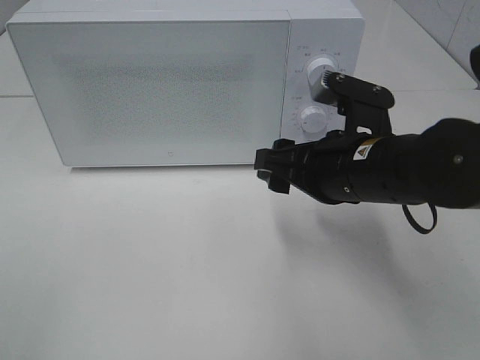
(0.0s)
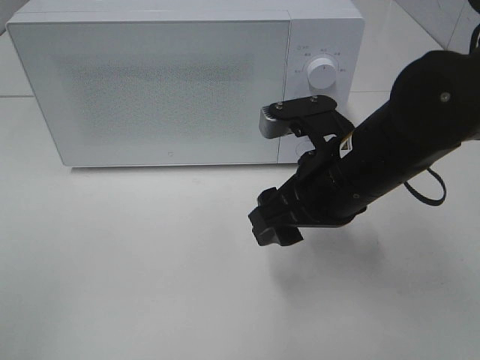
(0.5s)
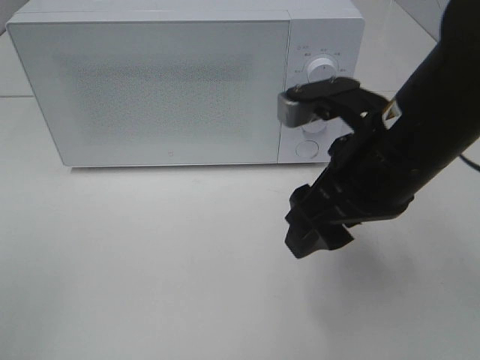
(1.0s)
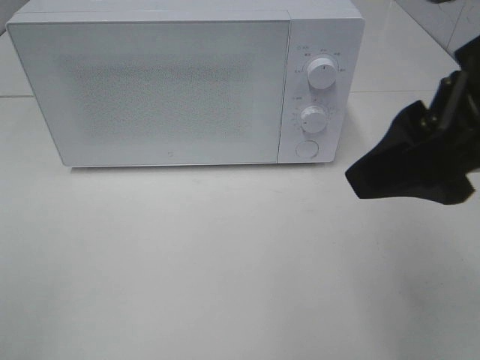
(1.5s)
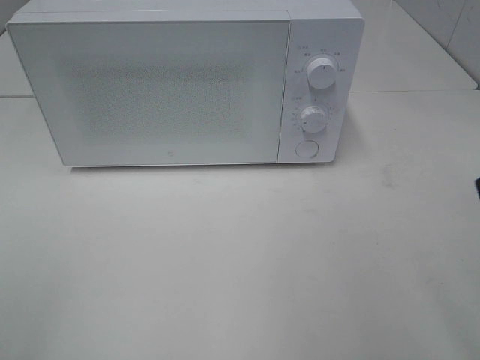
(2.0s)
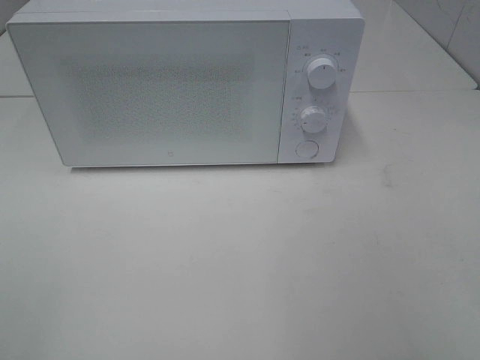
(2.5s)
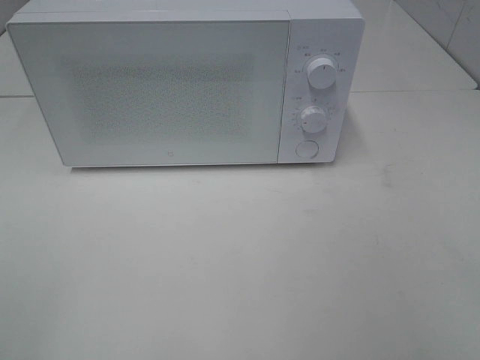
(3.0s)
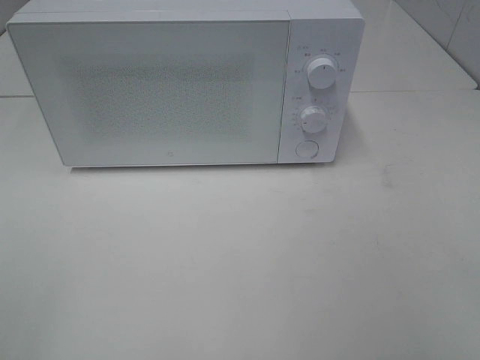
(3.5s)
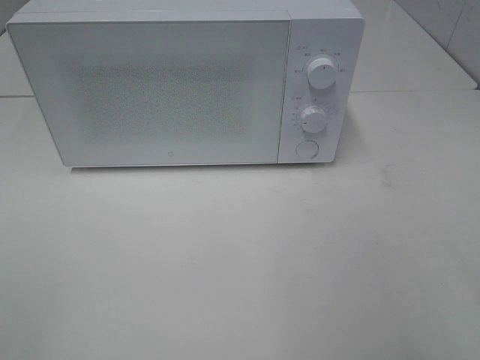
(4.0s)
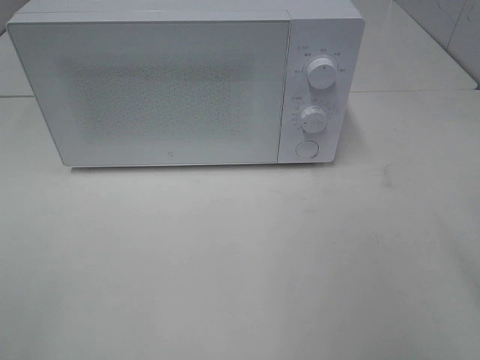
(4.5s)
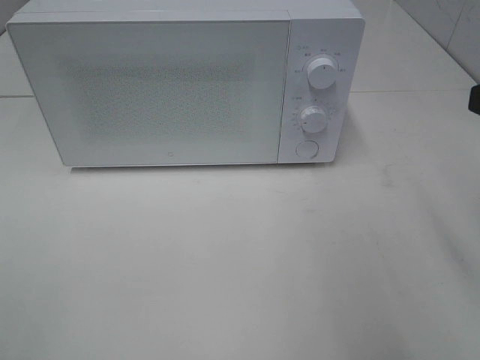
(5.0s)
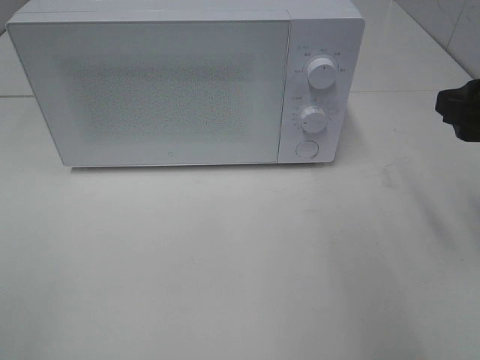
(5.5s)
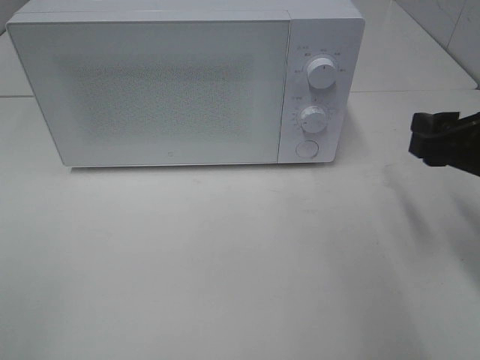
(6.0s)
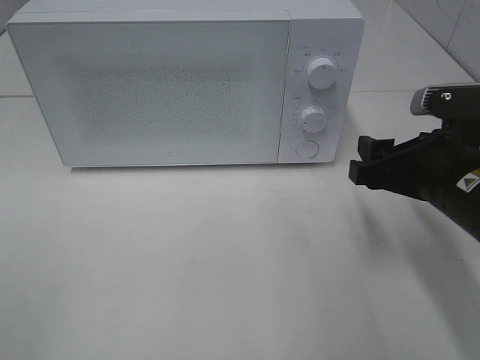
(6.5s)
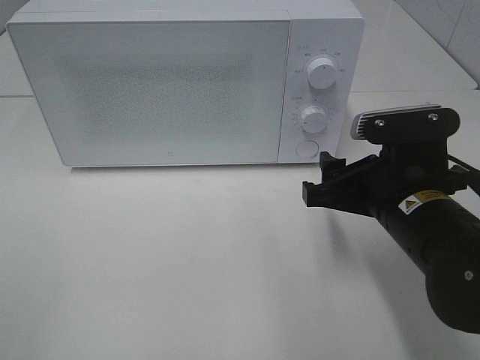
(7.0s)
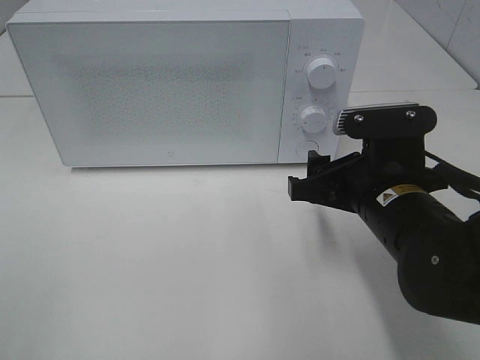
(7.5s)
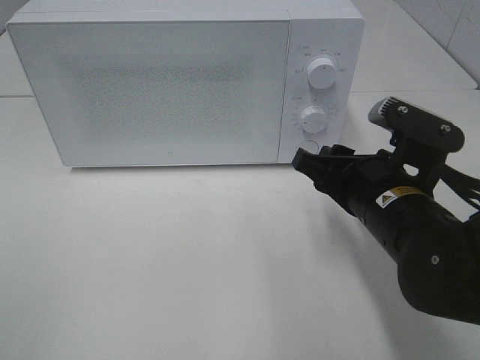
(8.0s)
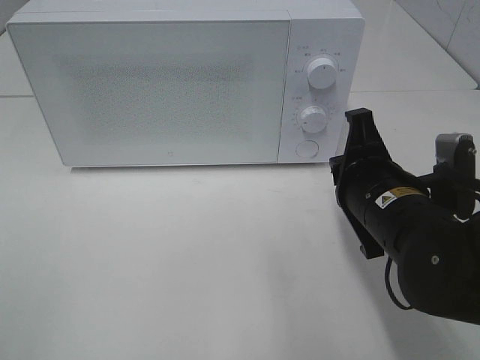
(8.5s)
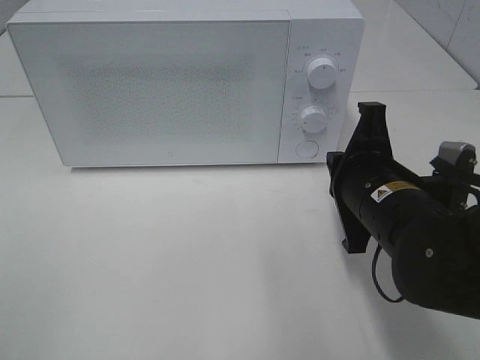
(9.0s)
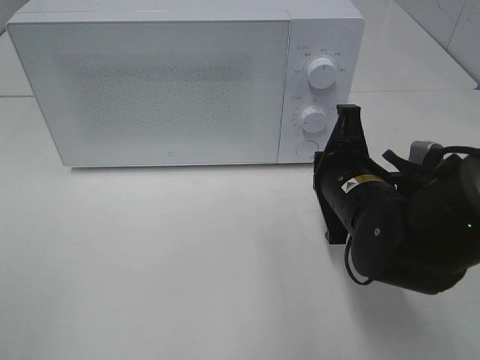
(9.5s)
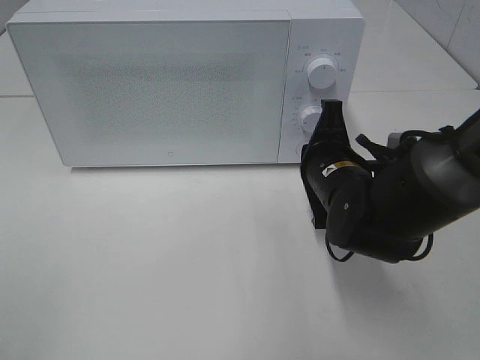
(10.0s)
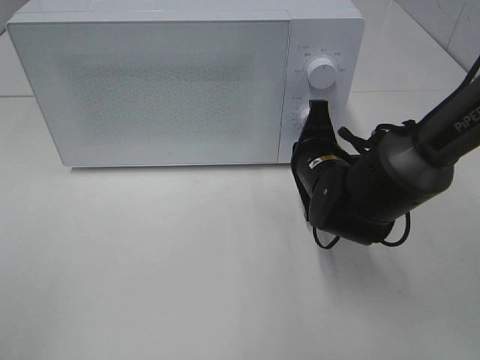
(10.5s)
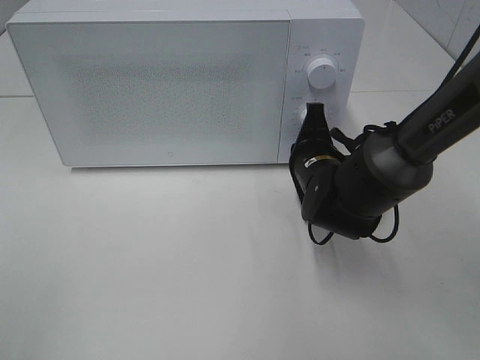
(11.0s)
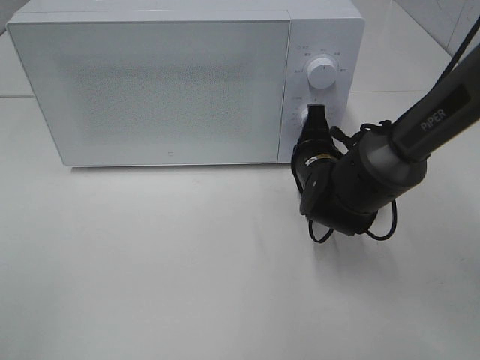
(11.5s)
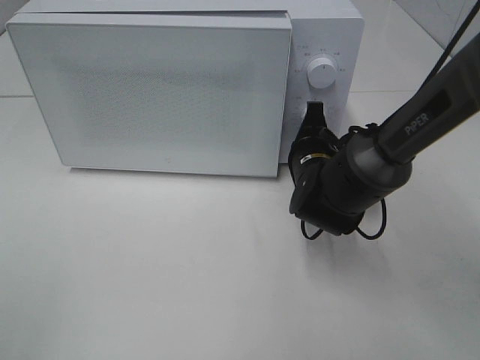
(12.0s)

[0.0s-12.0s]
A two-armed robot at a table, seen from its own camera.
Task of the whole recording: Heat the burger.
0.0s to 2.0s: The right gripper goes about 25 cm upward, backward and to the right.
4.0s to 6.0s: The right gripper heads forward and downward, covering some 20 cm.
6.0s to 8.0s: The right gripper travels to the left and downward by about 10 cm.
8.0s to 10.0s: The right gripper heads forward, covering roughly 5 cm, and closes up.
10.0s to 12.0s: The right gripper is displaced forward by some 5 cm.

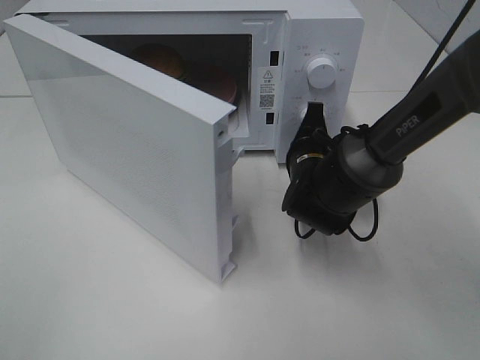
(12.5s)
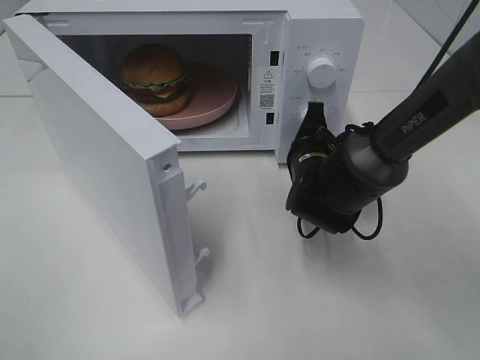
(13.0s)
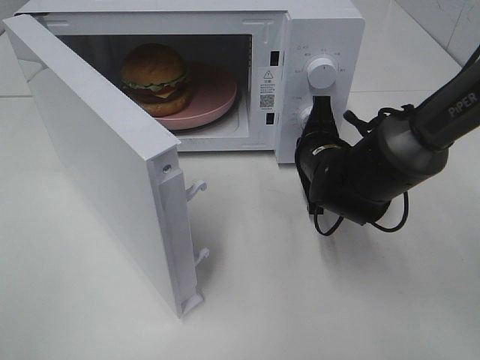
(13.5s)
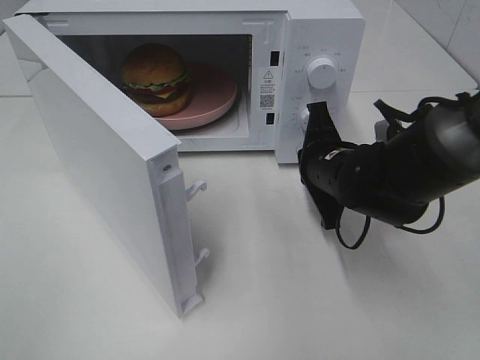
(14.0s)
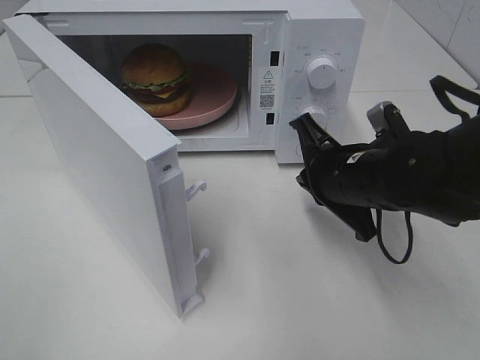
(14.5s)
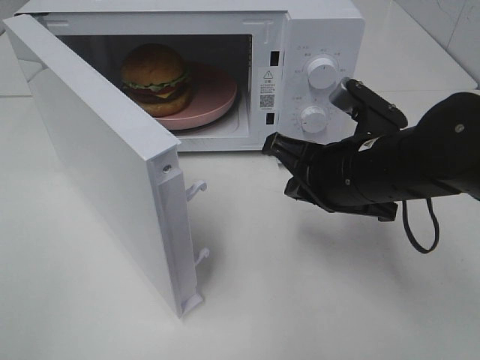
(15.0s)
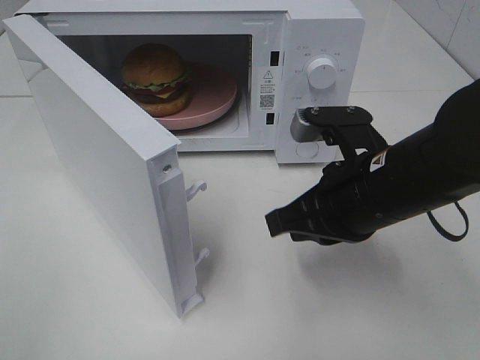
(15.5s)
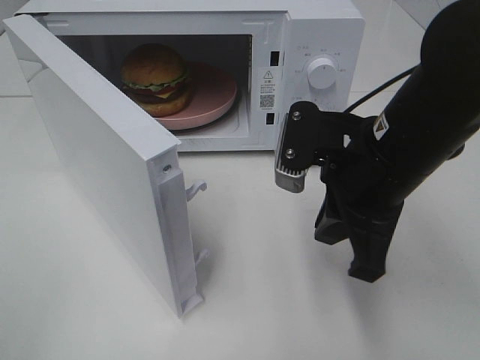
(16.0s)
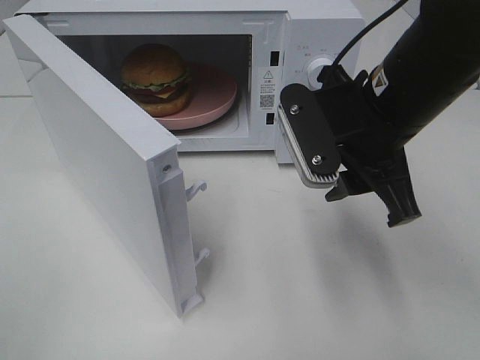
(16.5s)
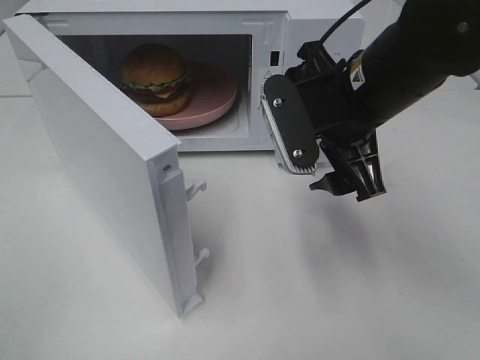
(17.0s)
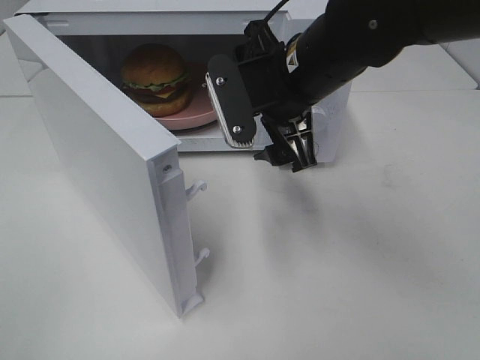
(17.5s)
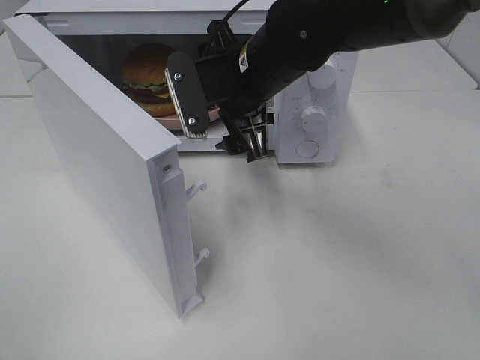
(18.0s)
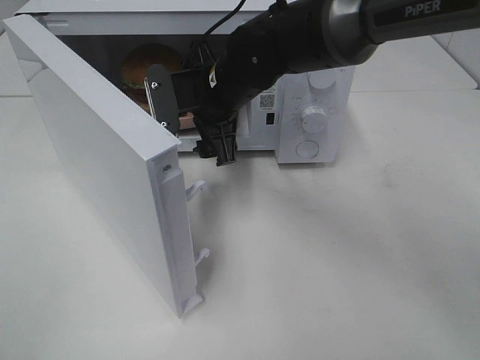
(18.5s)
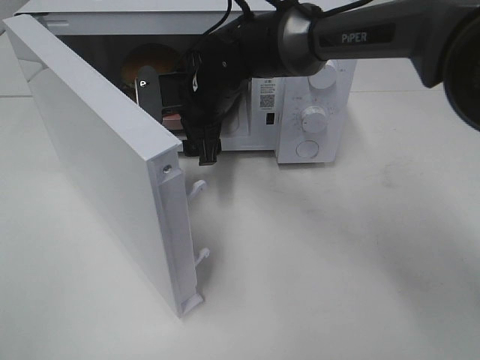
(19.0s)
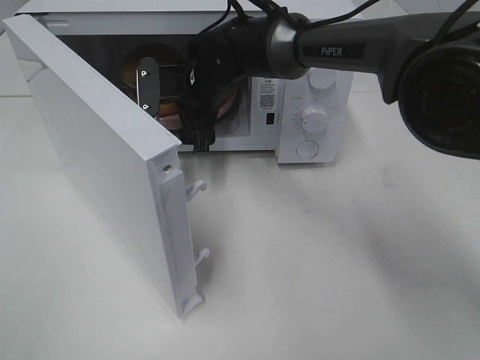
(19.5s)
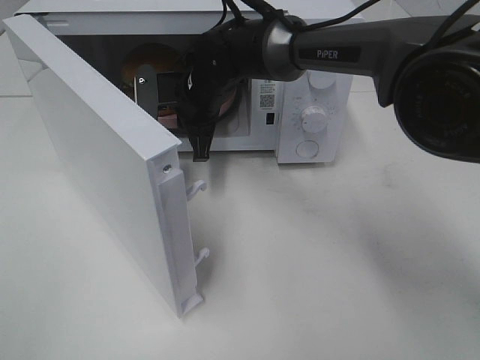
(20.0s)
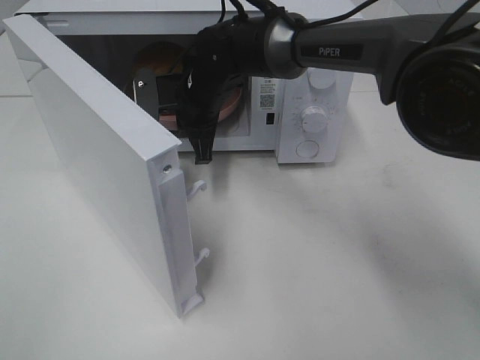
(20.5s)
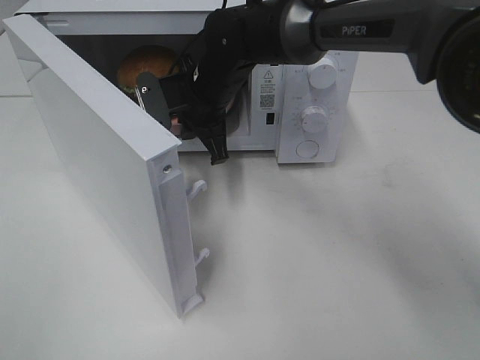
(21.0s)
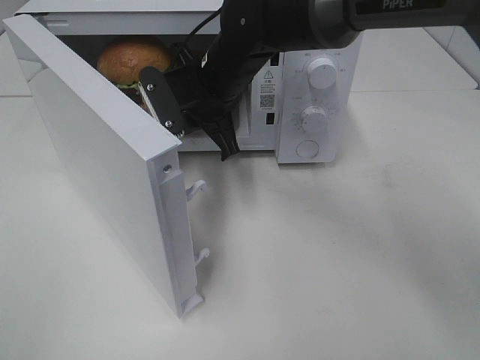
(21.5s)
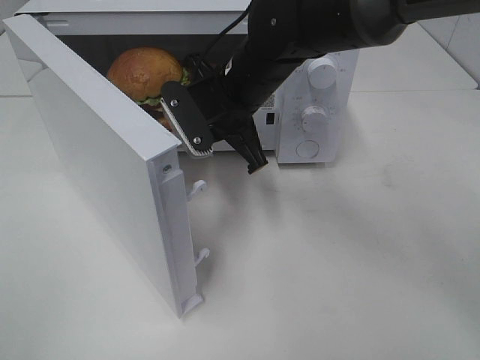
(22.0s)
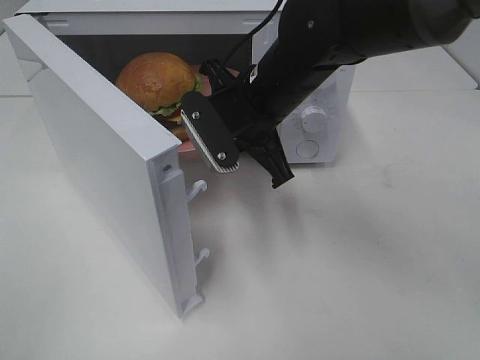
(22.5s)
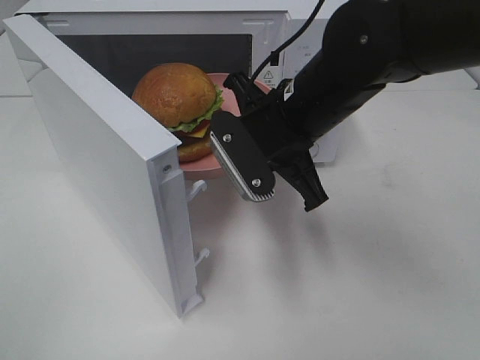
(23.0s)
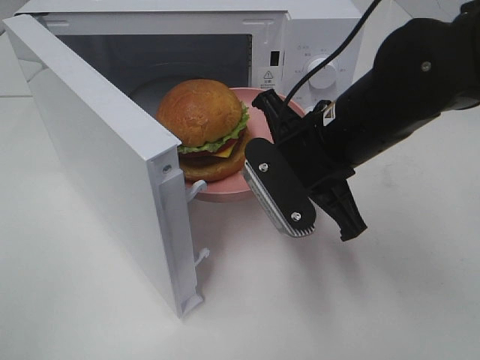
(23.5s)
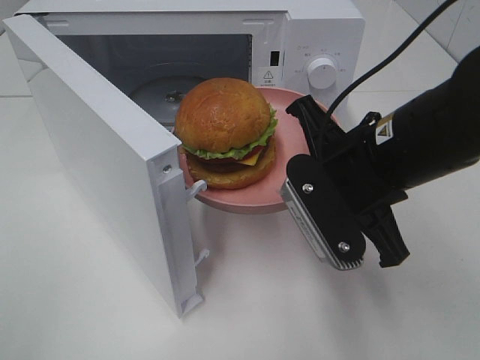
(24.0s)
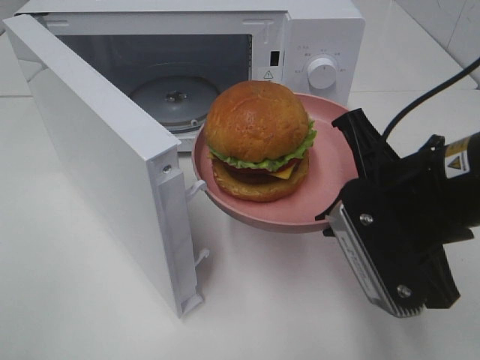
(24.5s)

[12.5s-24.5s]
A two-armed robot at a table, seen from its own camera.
Task of the whole recording: Heat the burger.
Step, 14.0s to 20.0s: Right hand: grab the plate with the hamburger.
12.5s to 14.5s: The right gripper is displaced backward and upward by approximately 10 cm.
14.5s to 16.5s: The right gripper heads upward, covering some 10 cm, and opens up.
16.5s to 18.5s: The right gripper travels forward, to the left and downward by roughly 20 cm, and opens.
18.5s to 20.5s: The right gripper travels forward by approximately 5 cm, and closes its fingers.
20.5s to 22.5s: The right gripper goes roughly 15 cm backward, to the right and upward.
22.5s to 24.5s: The right gripper moves backward and to the right, some 20 cm.

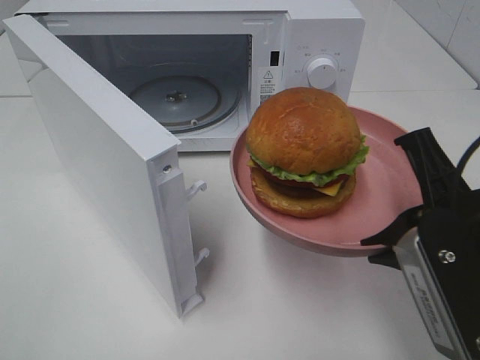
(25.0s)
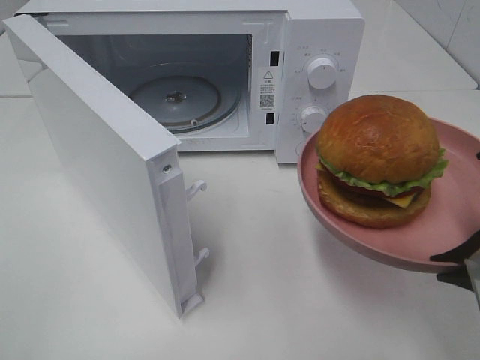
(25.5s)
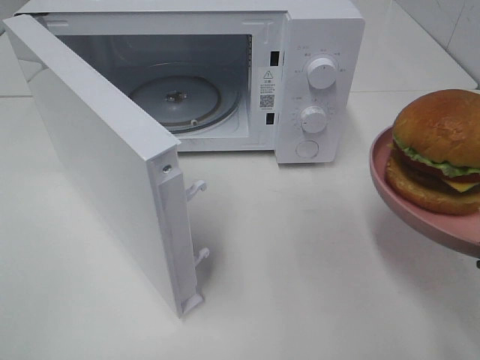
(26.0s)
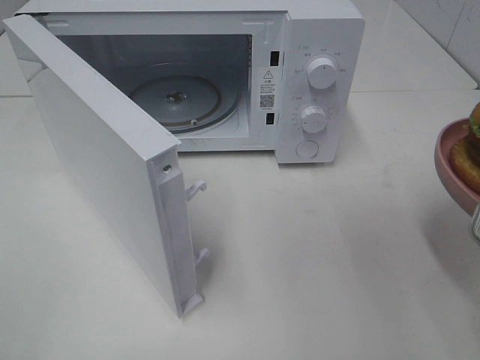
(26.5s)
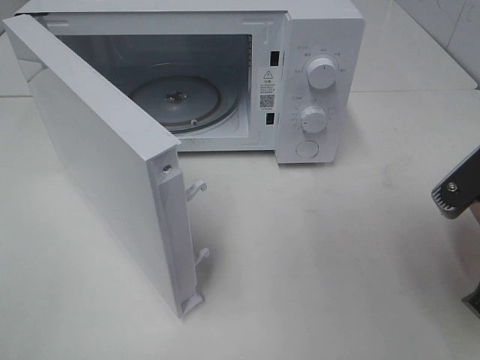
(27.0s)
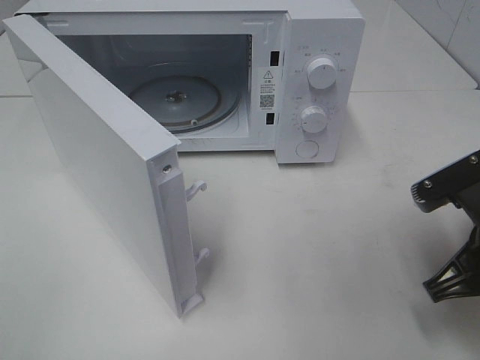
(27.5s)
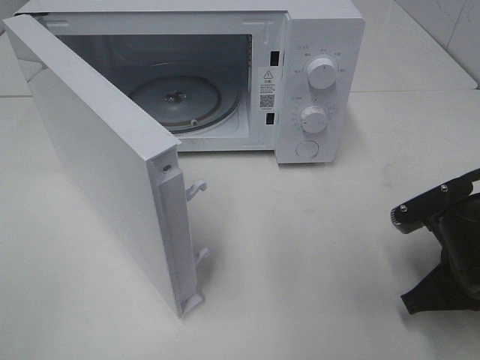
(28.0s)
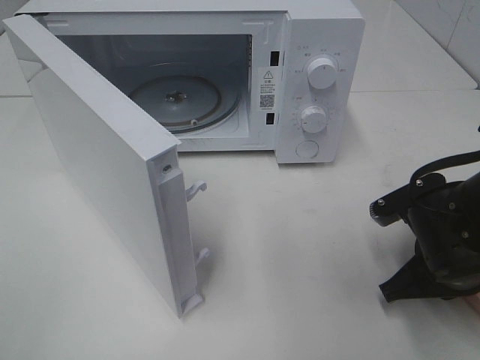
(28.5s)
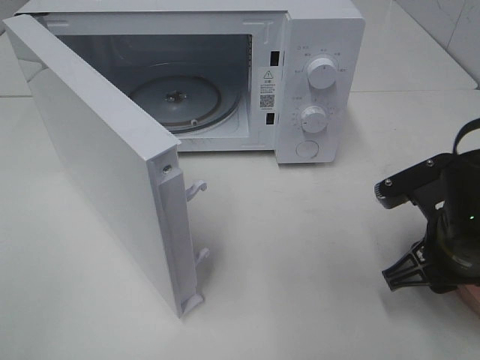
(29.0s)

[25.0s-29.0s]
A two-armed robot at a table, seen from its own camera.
Task of the whole recording: Heat the burger.
Step, 25.0s to 28.5s: Right hand: place the plate on the table.
25.0s to 27.0s: The right gripper ends up approximately 5 cm from where it was.
27.0s to 29.0s: The right gripper shifts roughly 5 cm downward, and opens its fingers.
